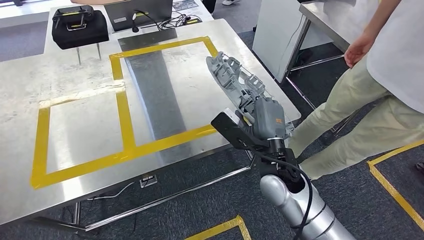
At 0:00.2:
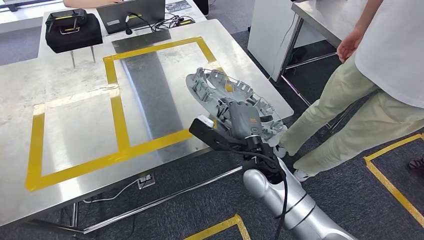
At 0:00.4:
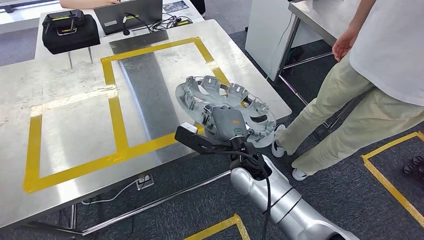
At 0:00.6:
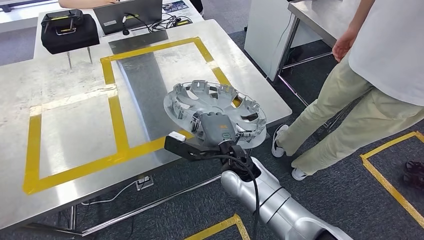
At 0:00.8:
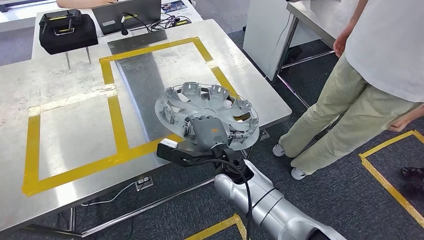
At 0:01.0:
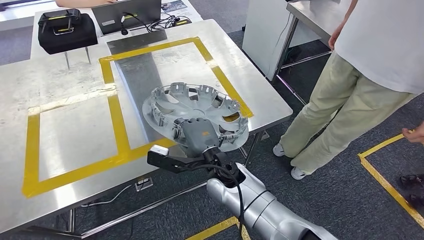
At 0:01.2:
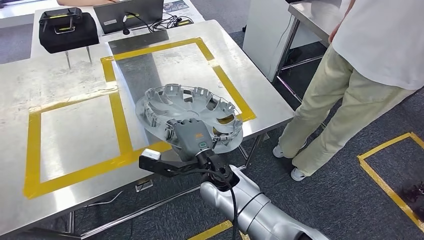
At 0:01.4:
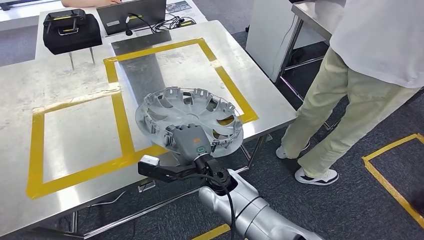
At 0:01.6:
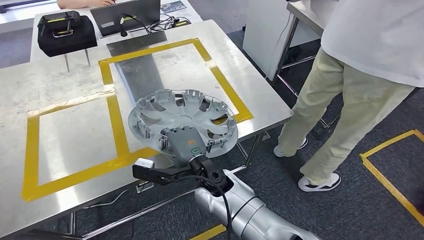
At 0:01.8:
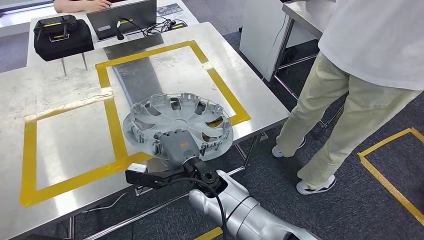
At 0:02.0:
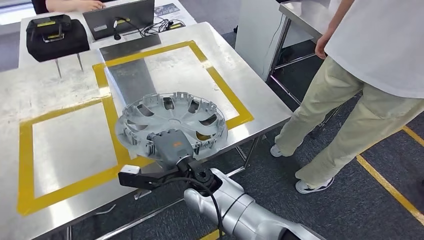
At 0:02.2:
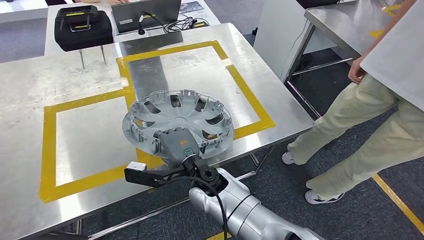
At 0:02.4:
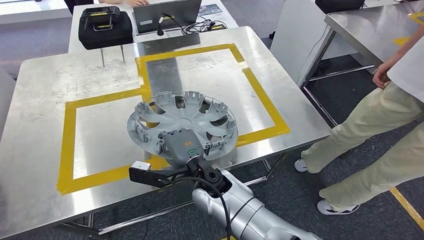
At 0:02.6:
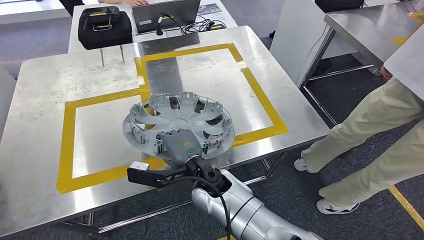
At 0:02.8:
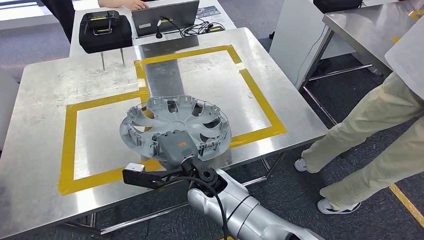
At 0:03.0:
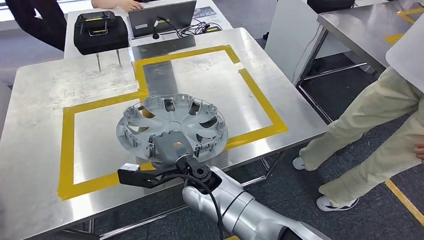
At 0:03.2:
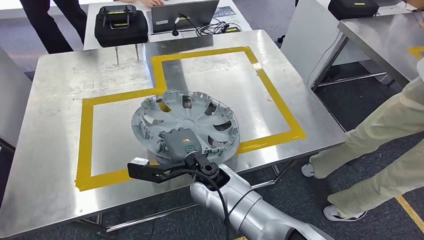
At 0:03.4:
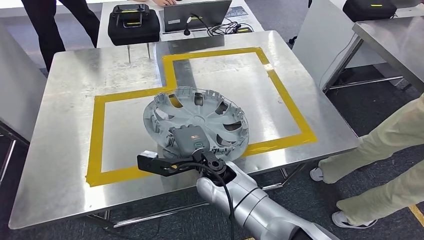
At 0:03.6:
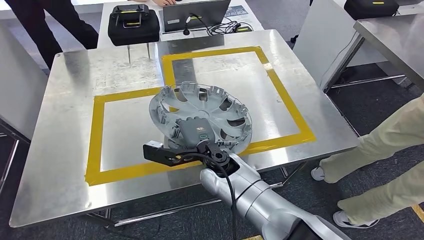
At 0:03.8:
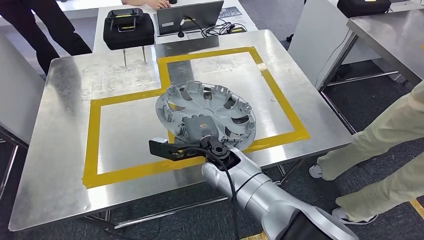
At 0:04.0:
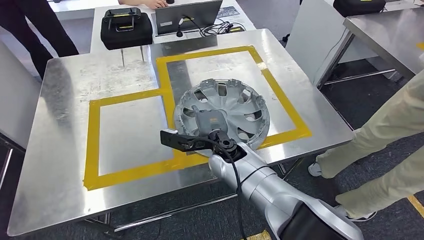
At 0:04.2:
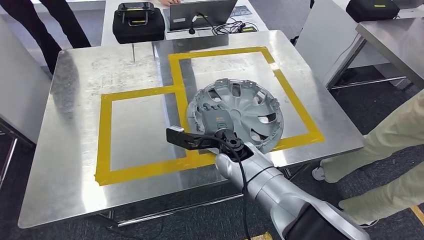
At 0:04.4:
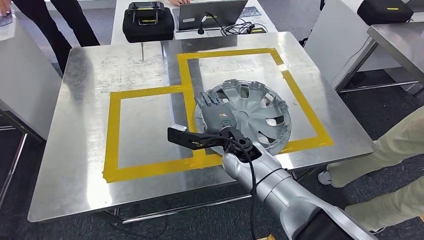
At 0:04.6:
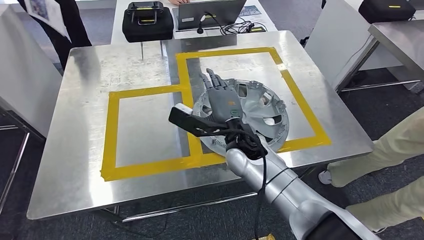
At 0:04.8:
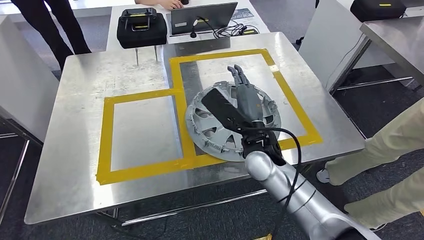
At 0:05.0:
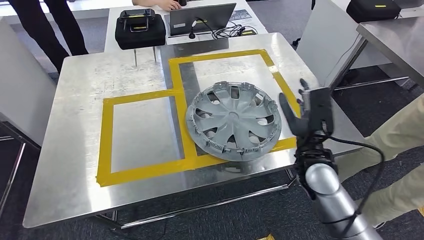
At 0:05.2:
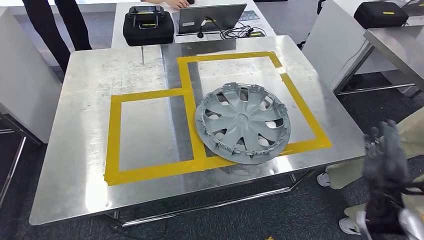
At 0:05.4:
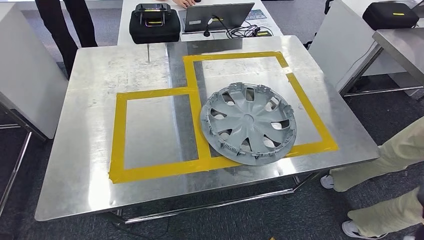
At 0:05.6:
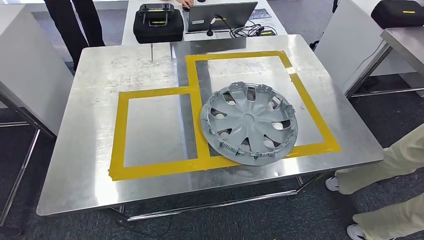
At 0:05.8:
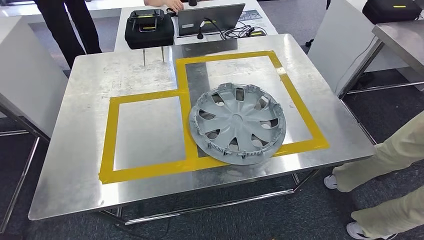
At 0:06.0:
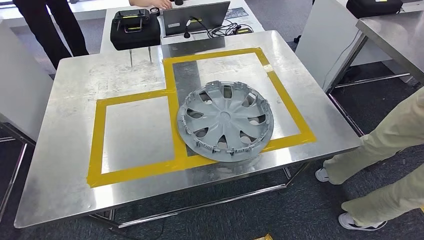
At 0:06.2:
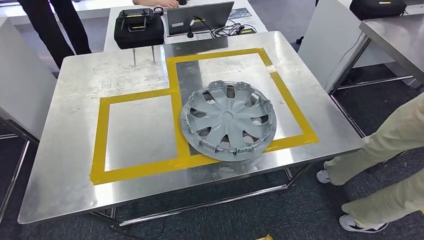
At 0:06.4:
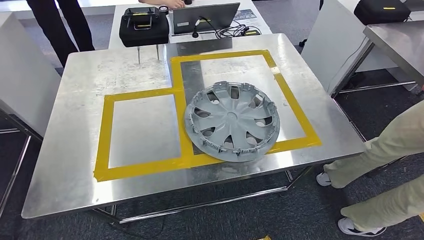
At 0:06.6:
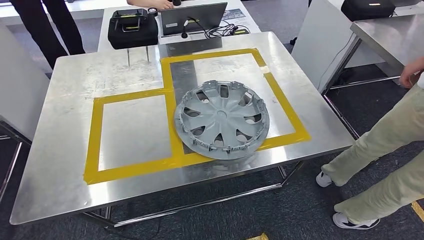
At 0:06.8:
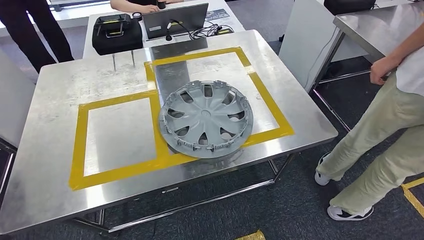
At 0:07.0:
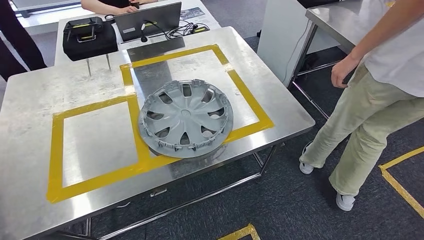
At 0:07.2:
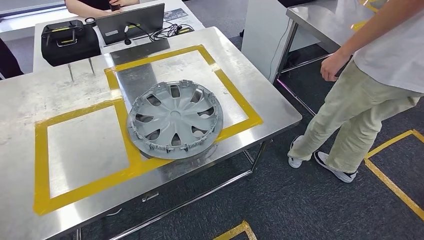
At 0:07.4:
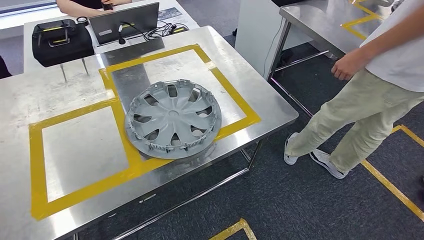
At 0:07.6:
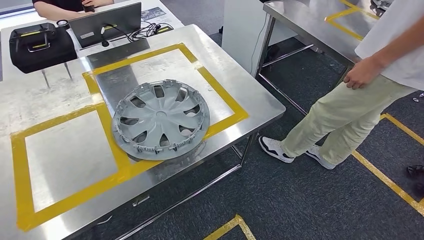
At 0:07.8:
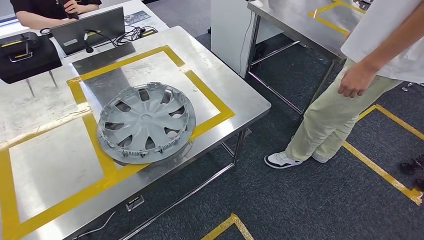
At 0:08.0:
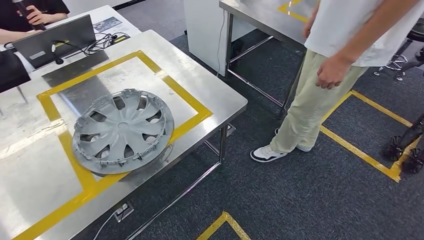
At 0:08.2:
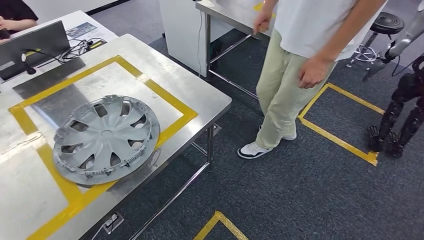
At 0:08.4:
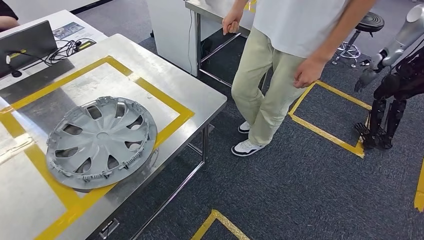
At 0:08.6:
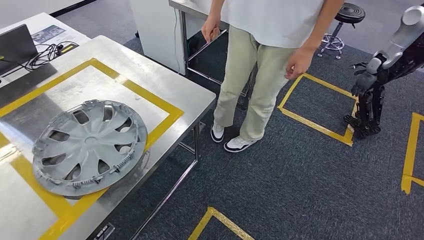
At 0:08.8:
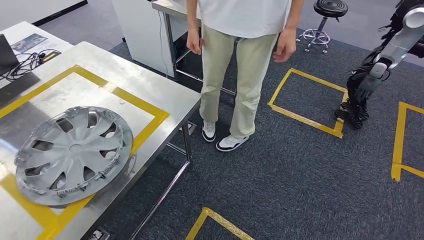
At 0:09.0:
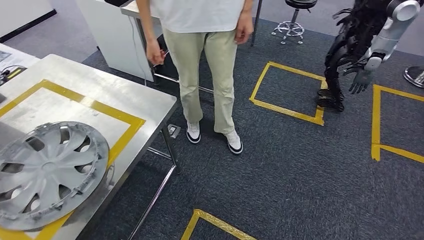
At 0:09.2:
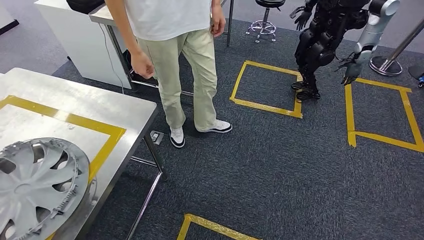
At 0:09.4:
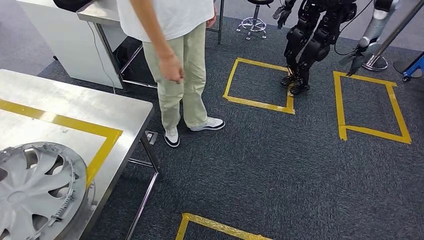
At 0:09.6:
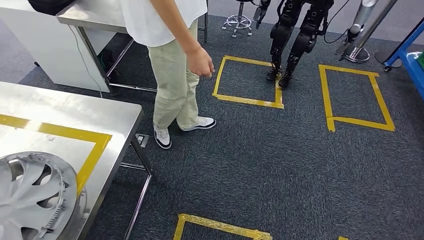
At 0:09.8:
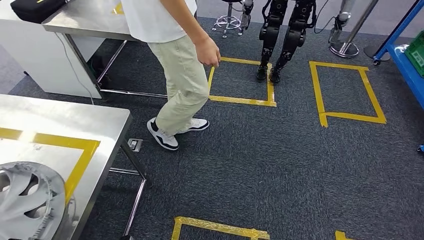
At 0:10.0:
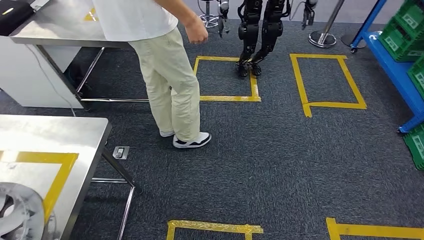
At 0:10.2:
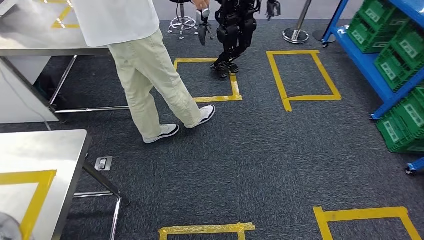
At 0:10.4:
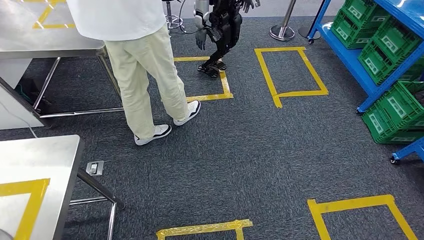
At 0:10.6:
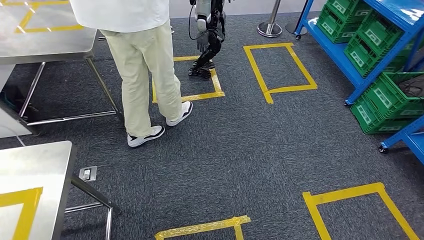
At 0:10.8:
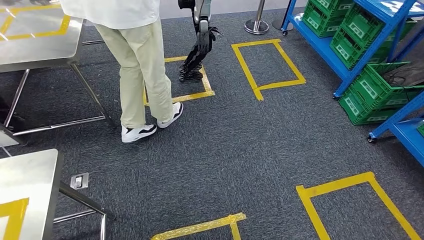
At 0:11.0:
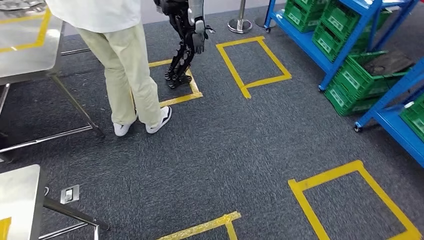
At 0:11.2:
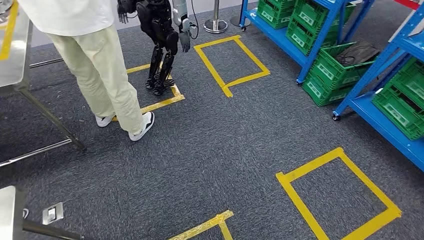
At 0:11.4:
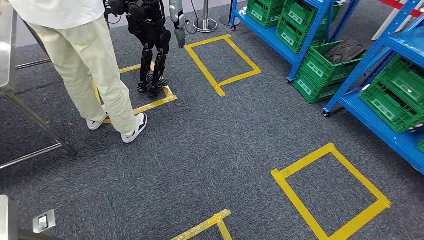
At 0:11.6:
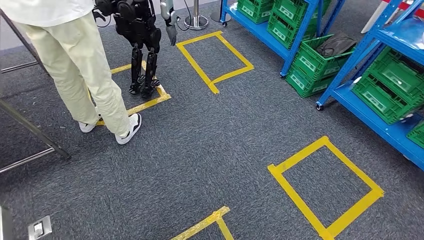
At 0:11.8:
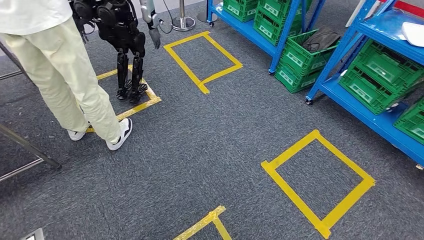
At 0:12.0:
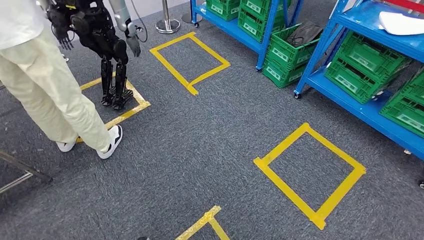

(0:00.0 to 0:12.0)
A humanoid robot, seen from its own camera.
Step, 0:00.0 - 0:04.8: Insert the small component into the corresponding slot on the workbench.

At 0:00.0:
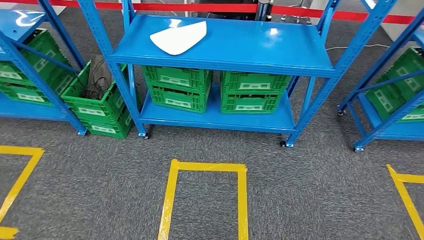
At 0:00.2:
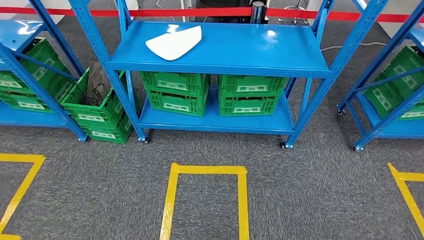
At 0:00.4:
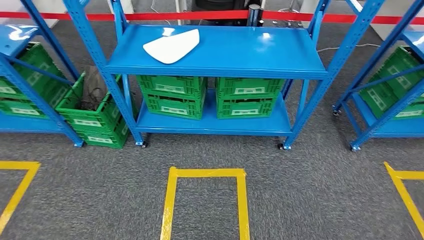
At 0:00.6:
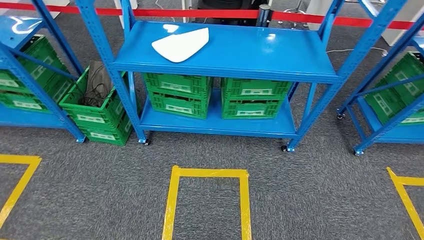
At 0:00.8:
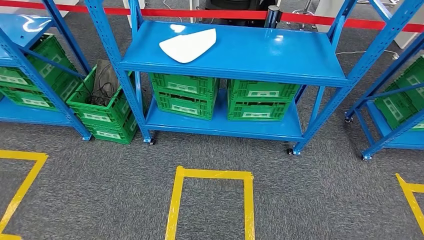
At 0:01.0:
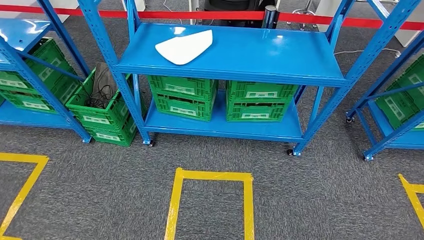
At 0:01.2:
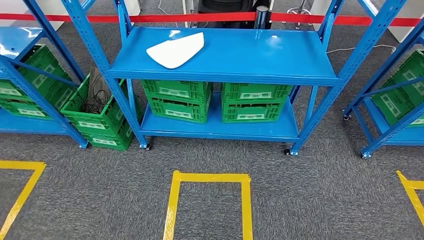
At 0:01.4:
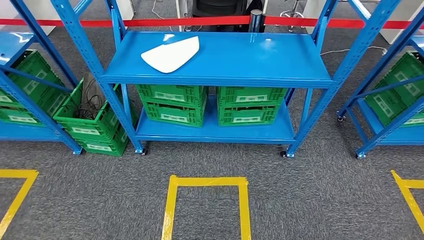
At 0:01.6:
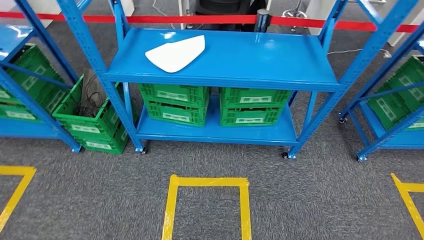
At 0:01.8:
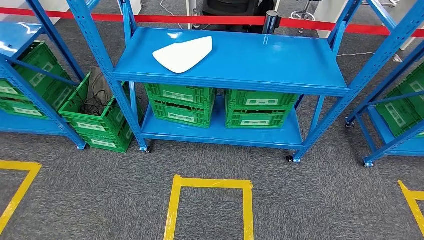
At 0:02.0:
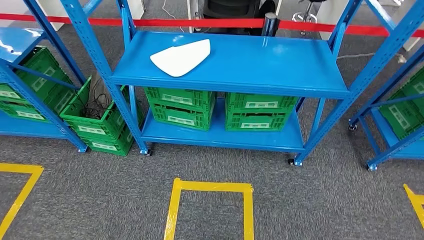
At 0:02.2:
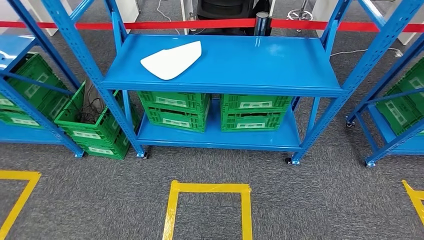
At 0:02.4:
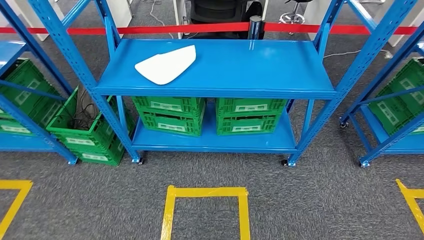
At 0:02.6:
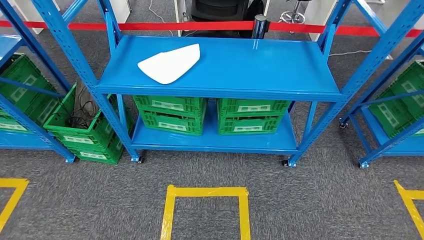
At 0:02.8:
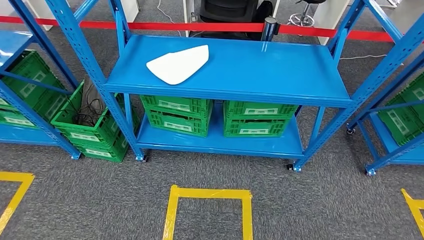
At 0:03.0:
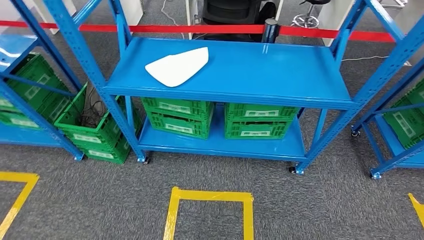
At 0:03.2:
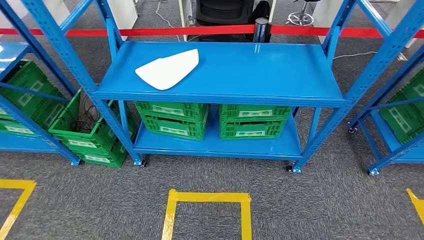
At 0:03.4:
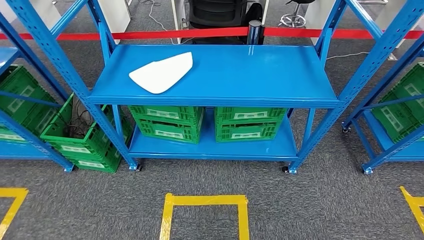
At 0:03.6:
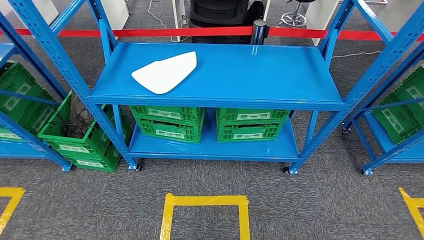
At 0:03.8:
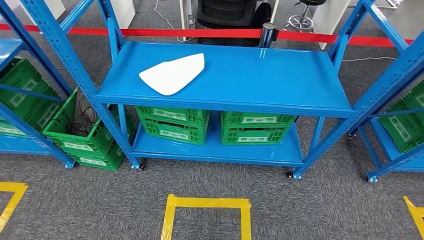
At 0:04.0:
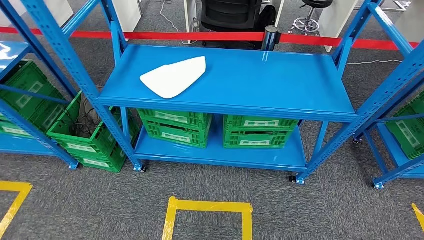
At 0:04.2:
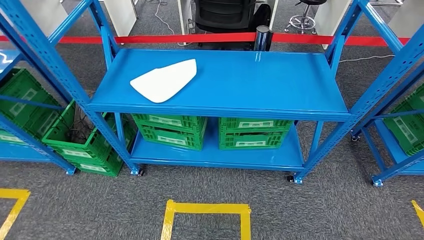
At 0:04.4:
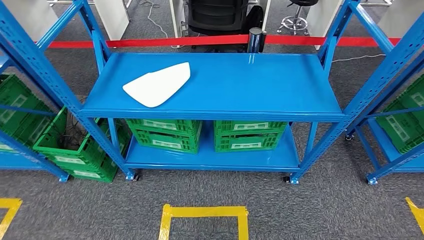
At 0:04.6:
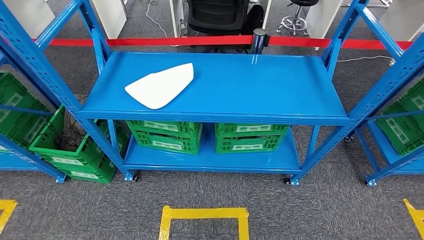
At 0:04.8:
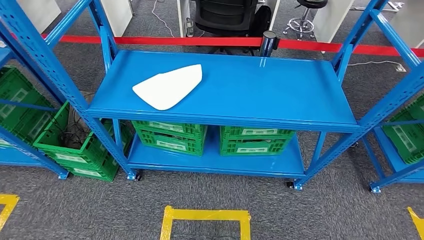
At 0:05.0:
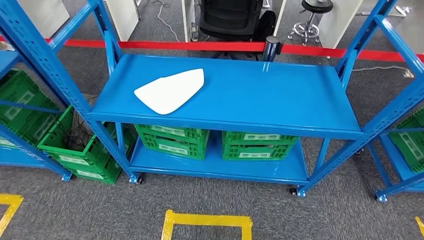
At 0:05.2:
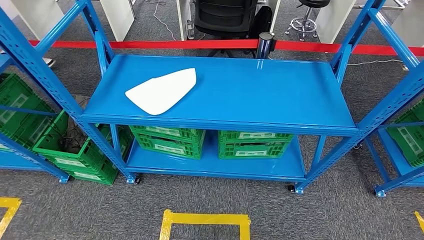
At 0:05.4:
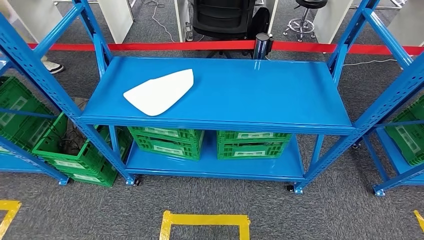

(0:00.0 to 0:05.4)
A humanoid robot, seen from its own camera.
Step, 0:00.0 - 0:05.4: Return to the initial position at the workbench.
